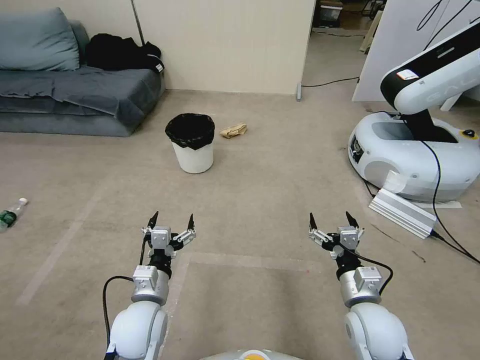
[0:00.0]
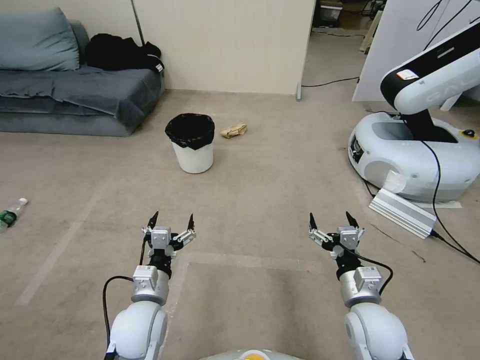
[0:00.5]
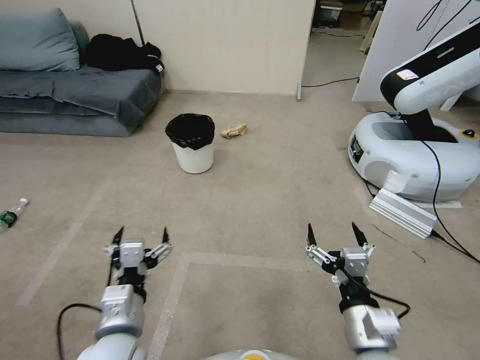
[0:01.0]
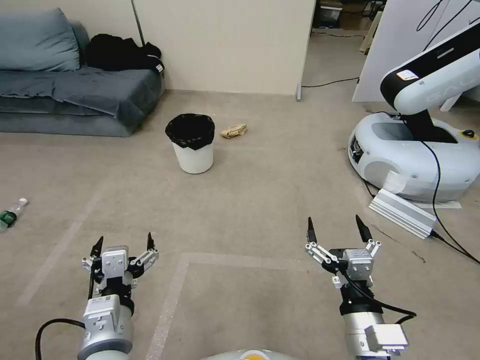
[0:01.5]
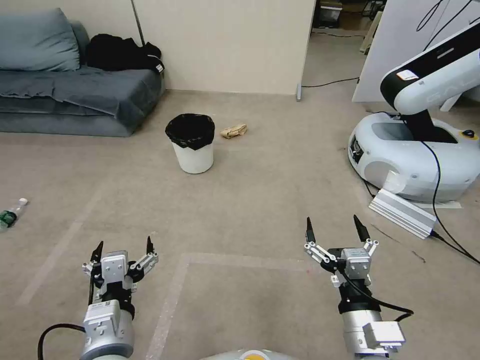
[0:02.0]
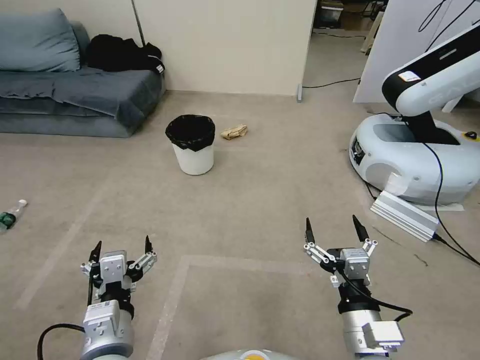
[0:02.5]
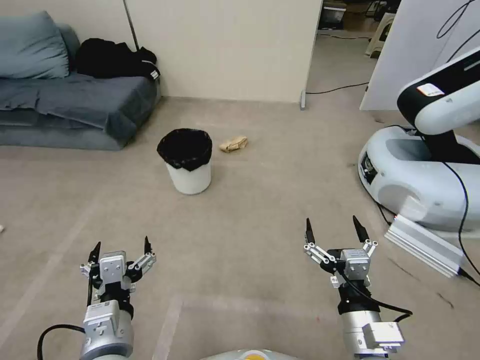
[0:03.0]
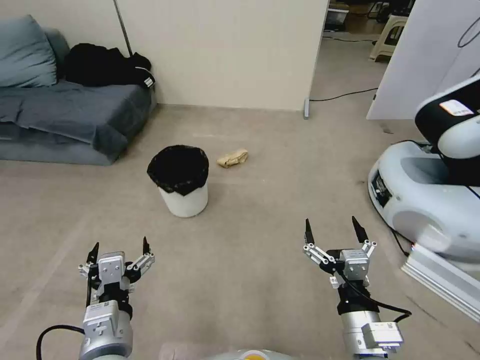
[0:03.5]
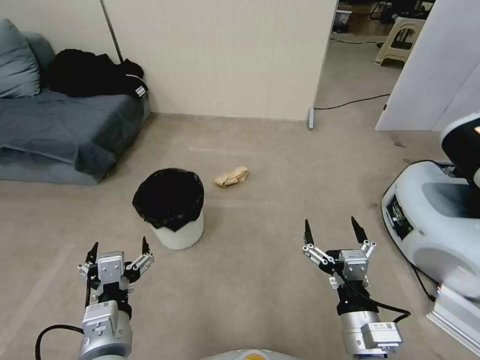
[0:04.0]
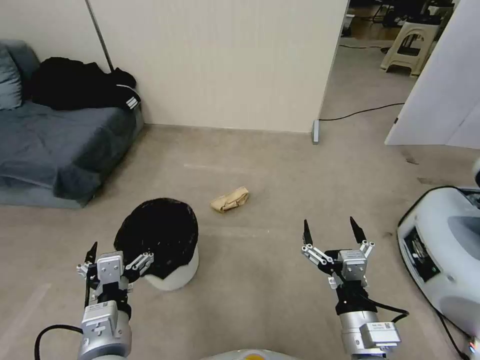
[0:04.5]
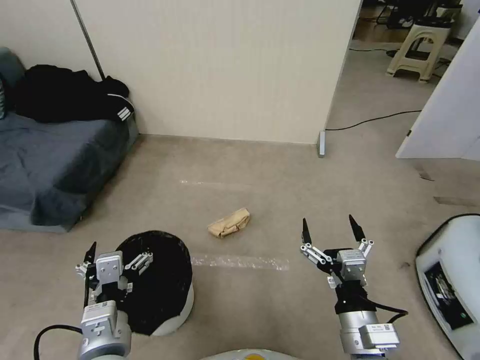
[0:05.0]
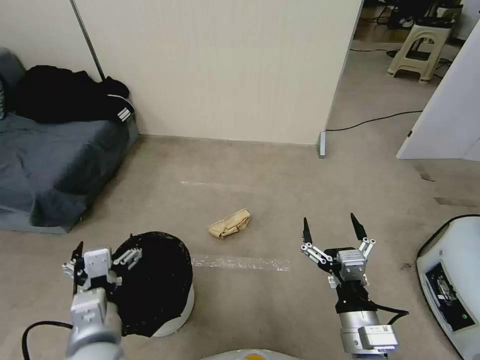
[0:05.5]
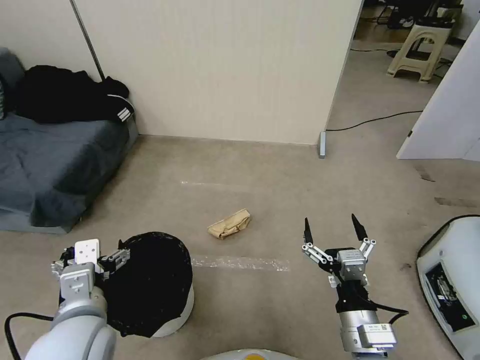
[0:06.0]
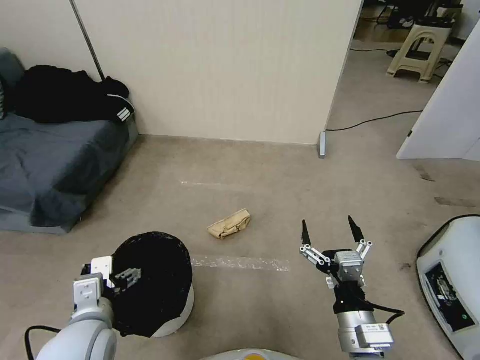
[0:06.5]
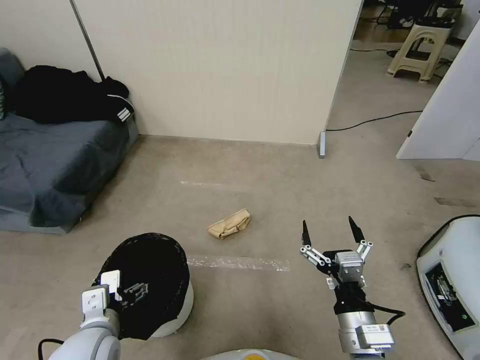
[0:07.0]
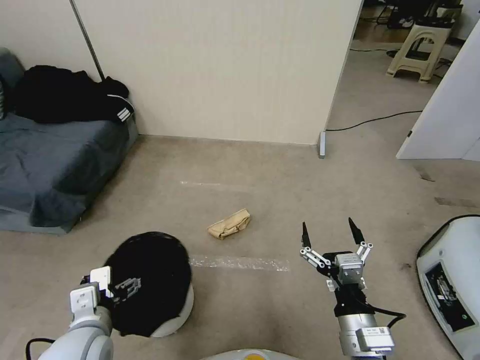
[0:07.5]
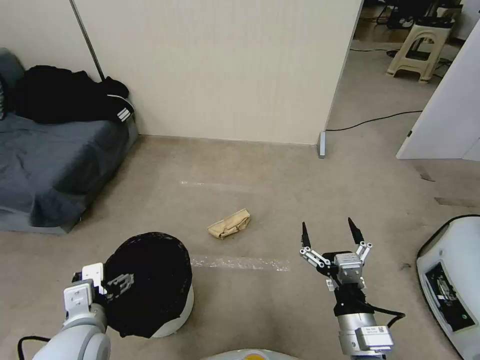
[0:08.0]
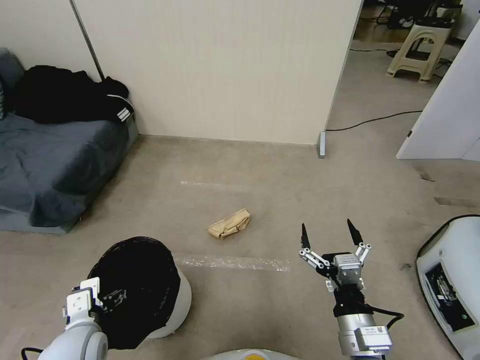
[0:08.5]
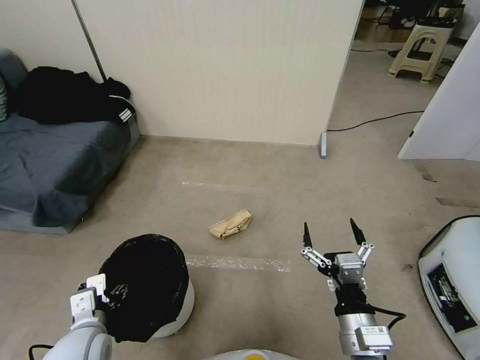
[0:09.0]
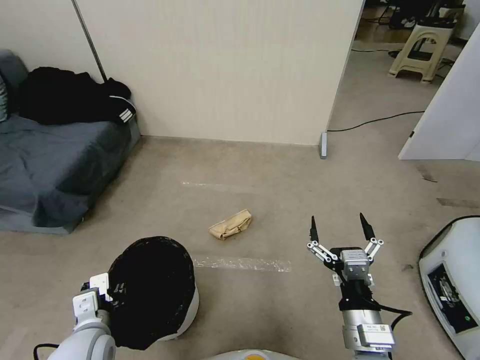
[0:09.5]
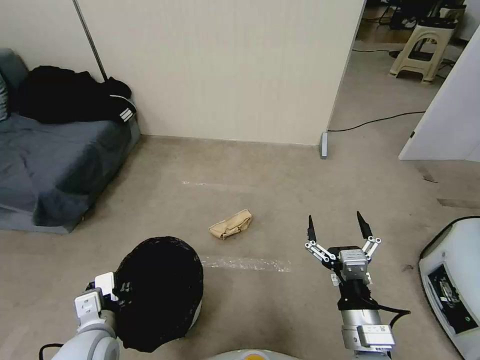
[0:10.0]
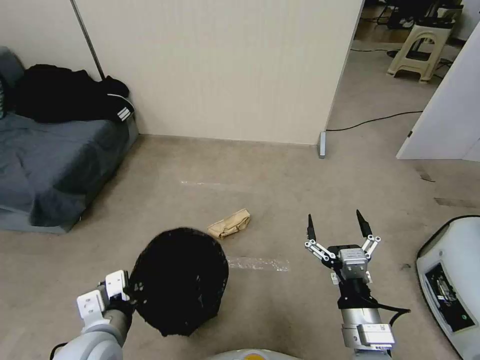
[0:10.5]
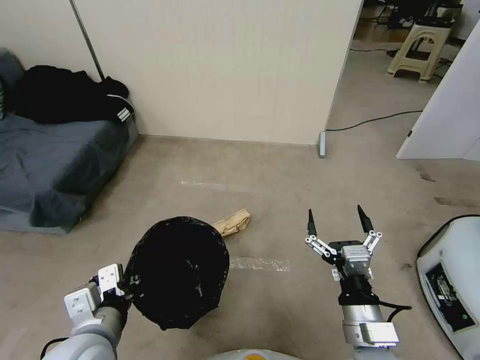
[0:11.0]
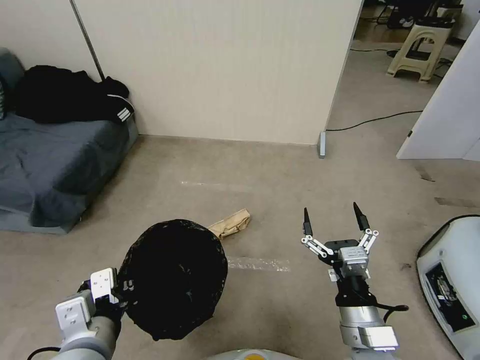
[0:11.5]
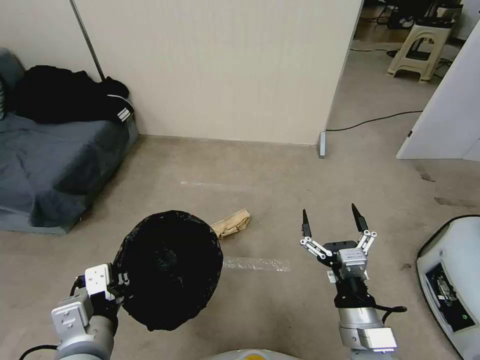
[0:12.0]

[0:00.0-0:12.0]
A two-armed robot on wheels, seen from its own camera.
Task of the whole recording: Pick up the trash bin, then pick up the garbage from the floor and place it into the trash bin.
0:04.0 to 0:06.0: The left gripper ends up about 5 cm from where it was.
0:06.0 to 0:08.0: The left gripper heads downward, covering approximately 5 cm.
0:08.0 to 0:10.0: The left gripper heads downward, covering some 5 cm, and closes its fingers.
0:10.0 to 0:12.0: The left gripper goes approximately 10 cm upward.

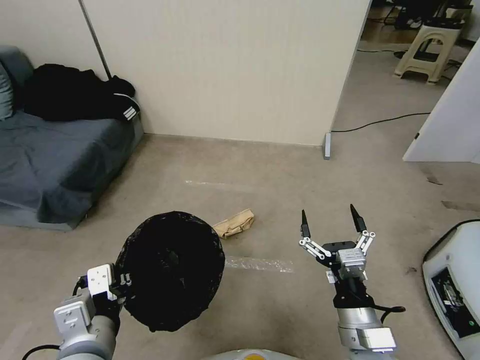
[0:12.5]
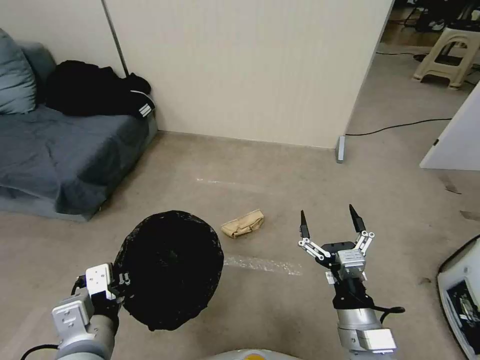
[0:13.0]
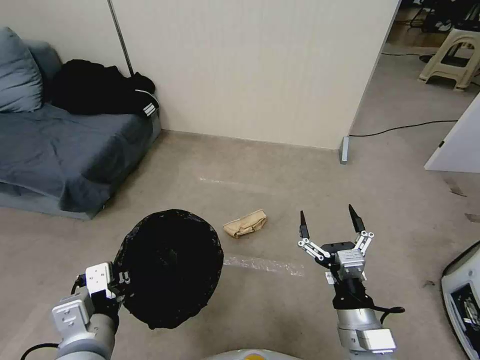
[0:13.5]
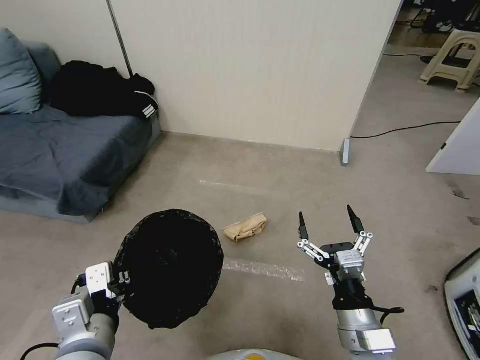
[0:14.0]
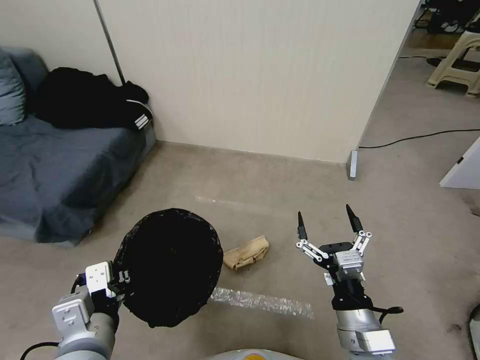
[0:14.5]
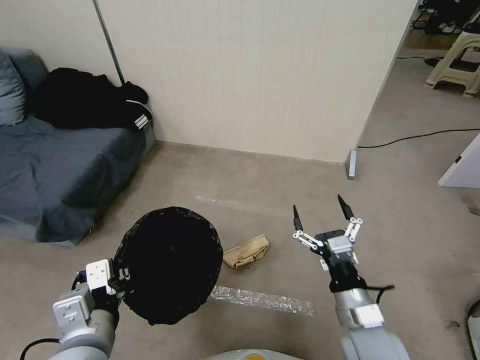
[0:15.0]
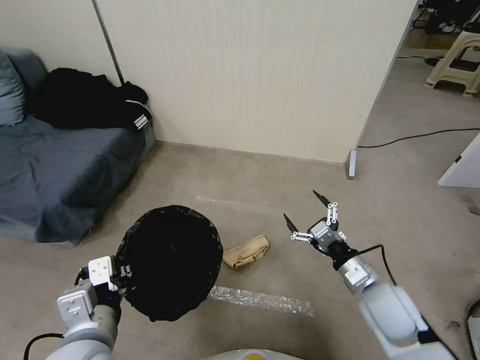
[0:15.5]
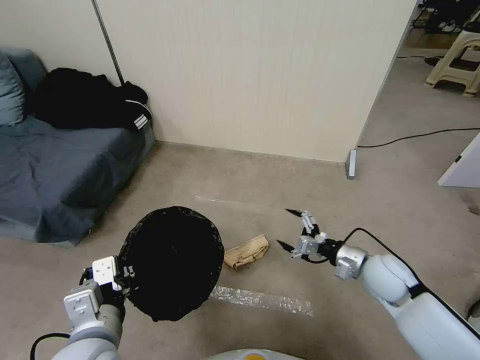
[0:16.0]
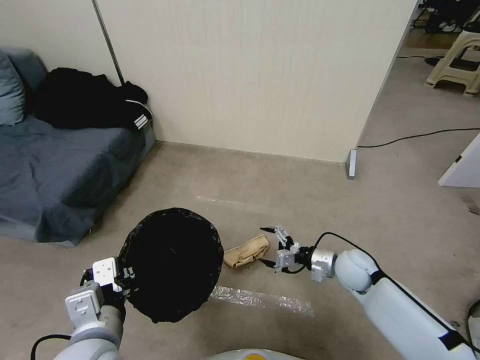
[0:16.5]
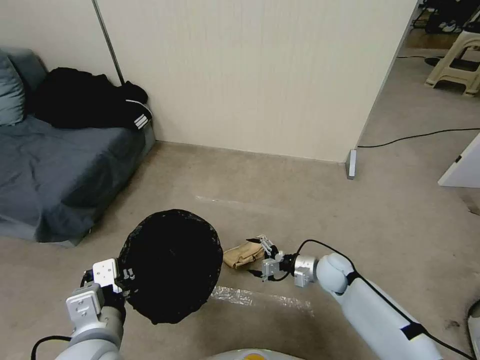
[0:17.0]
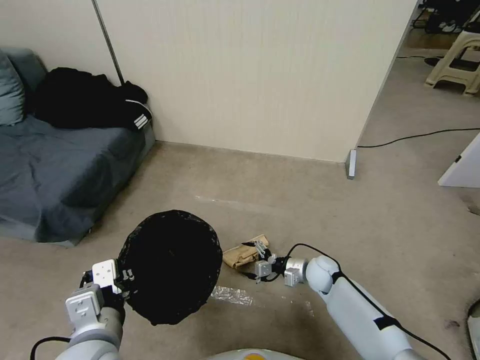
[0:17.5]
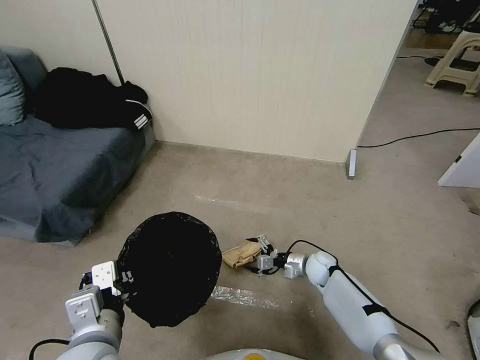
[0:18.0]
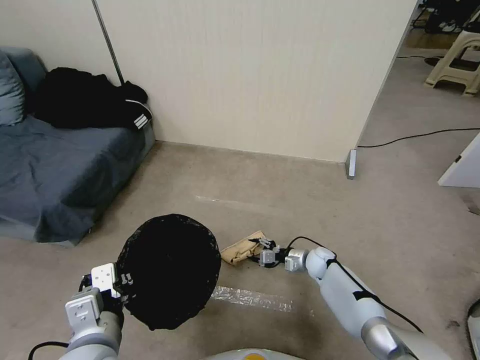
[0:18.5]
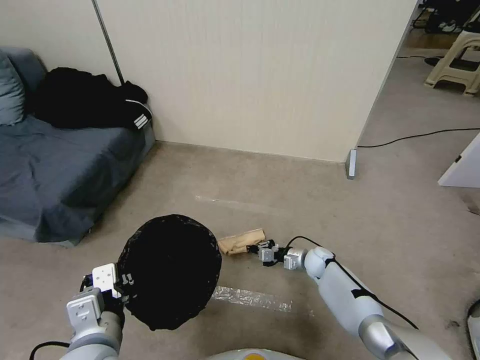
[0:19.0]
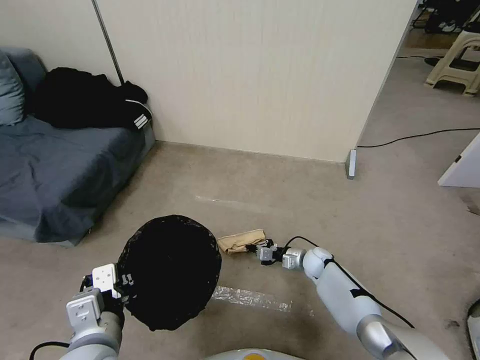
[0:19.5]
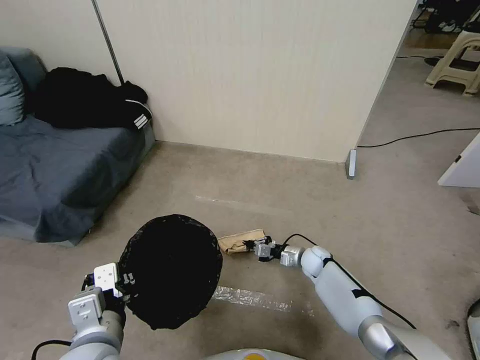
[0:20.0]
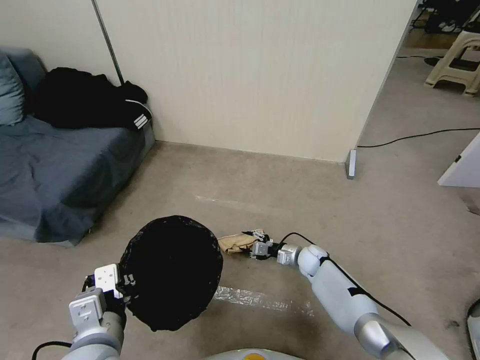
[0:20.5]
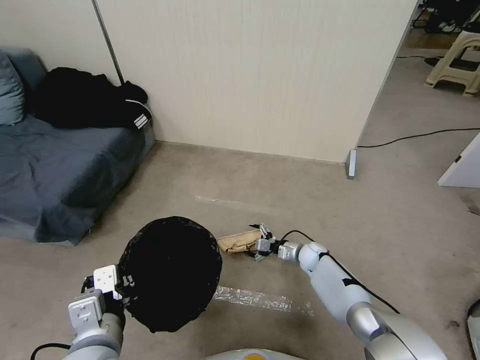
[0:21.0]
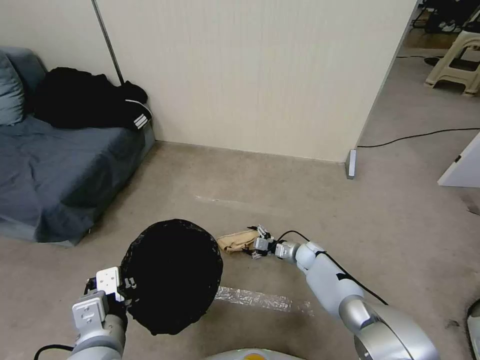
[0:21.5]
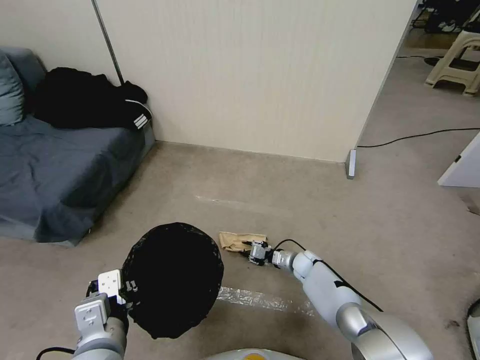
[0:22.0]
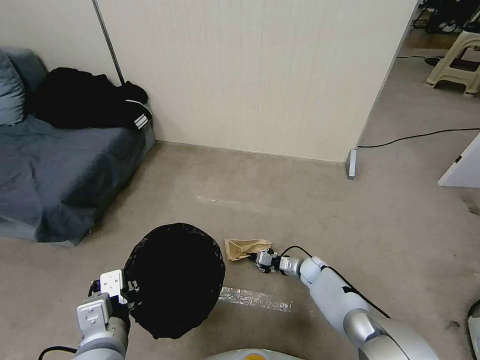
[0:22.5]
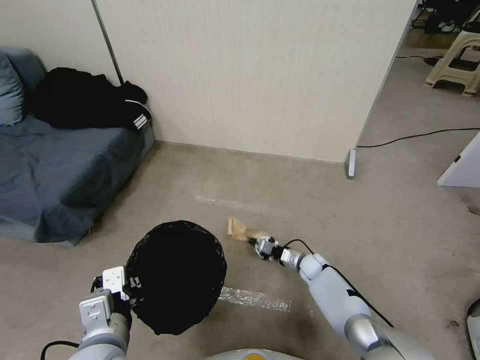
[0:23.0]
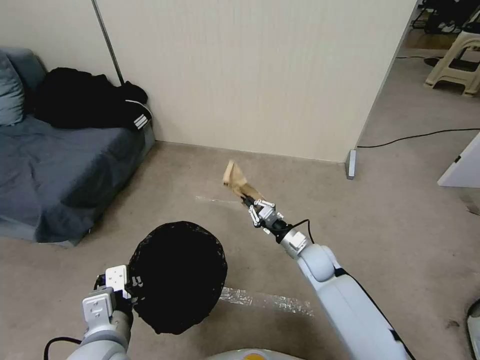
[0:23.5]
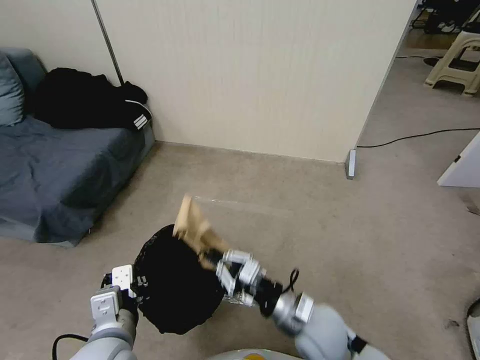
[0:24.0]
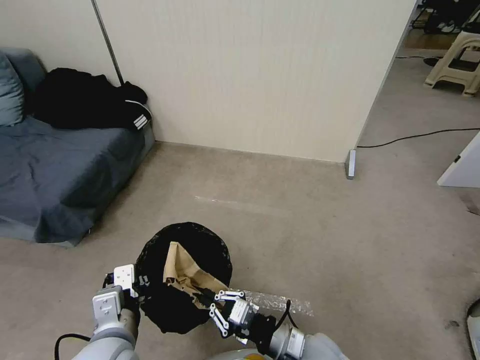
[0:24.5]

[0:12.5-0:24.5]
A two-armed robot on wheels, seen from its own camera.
Task of the whole recording: Pick up the trash bin, then pick up the garbage from the floor and place it into the trash bin.
0:14.5 to 0:16.5: The right gripper heads forward and downward, covering about 25 cm.
0:16.5 to 0:18.5: The right gripper shifts roughly 15 cm downward and forward, and closes.
0:18.5 to 0:20.5: The right gripper closes and opens again.
0:20.5 to 0:22.5: The right gripper ends up roughly 5 cm from where it was, and closes its fingers.
0:22.5 to 0:24.5: The right gripper goes approximately 30 cm backward and upward.

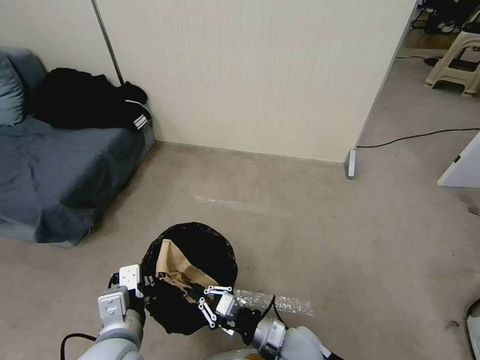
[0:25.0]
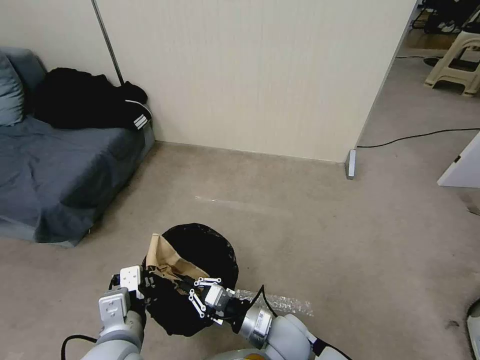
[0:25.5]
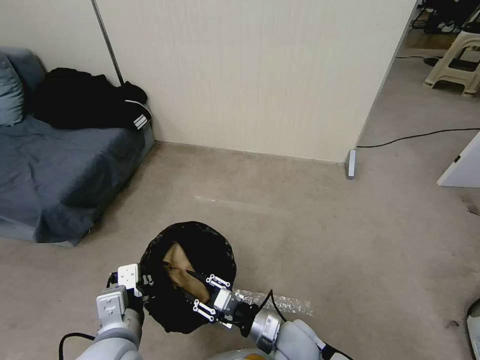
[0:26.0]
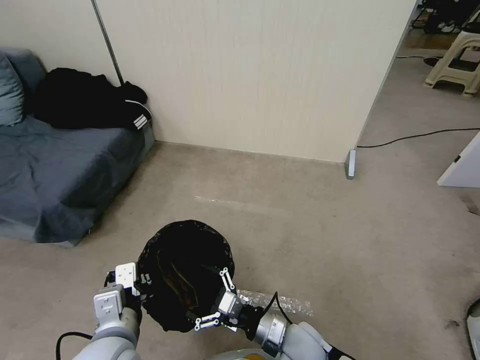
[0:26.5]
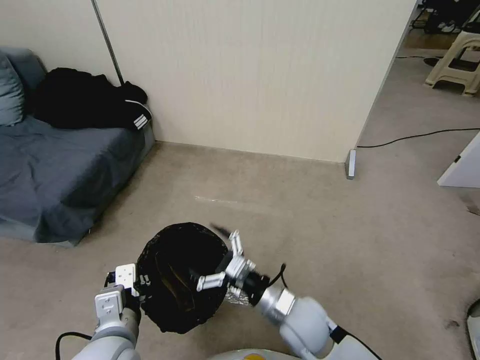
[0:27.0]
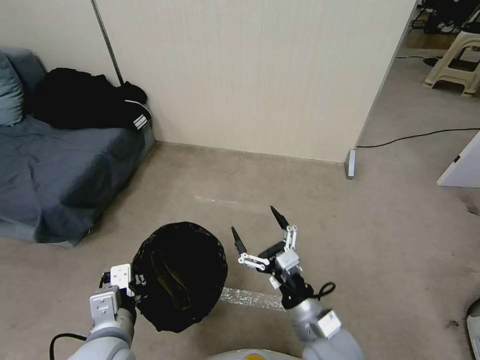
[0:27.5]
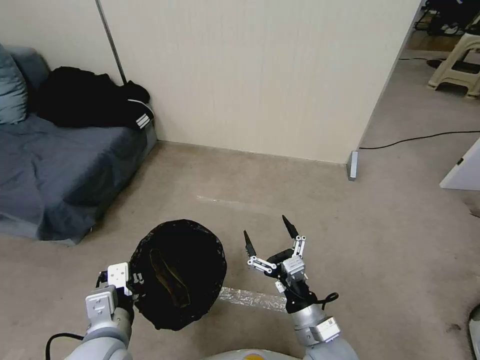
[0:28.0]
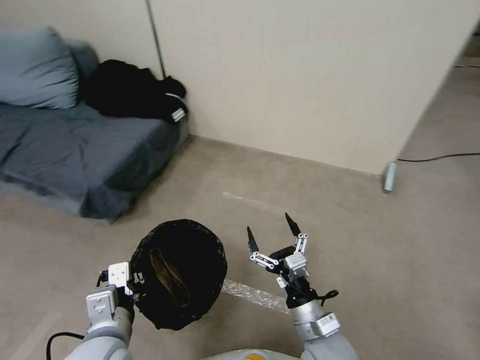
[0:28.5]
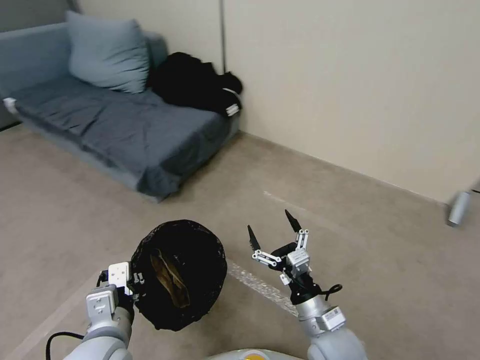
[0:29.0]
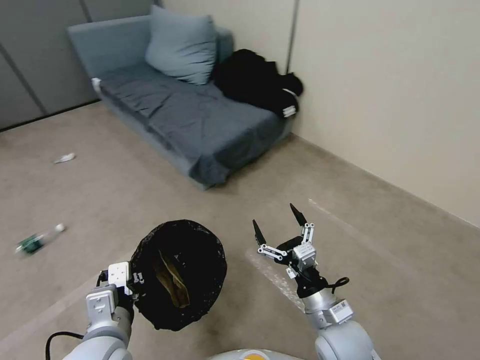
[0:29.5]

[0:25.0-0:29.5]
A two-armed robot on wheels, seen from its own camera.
Task of the whole recording: Pick up the trash bin, then pick up the garbage from the floor and place it into the trash bin.
0:25.0 to 0:27.0: The right gripper travels upward by about 5 cm, and opens its fingers.
0:27.0 to 0:29.5: The right gripper is displaced to the right by about 5 cm.
